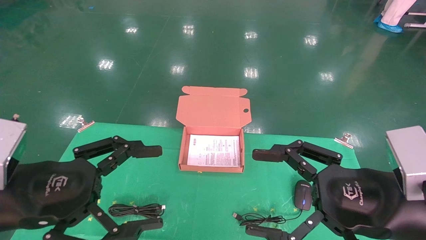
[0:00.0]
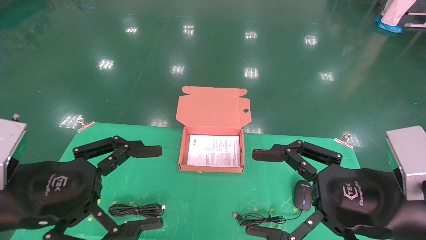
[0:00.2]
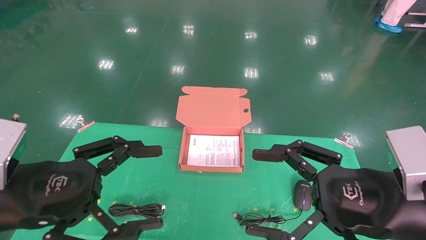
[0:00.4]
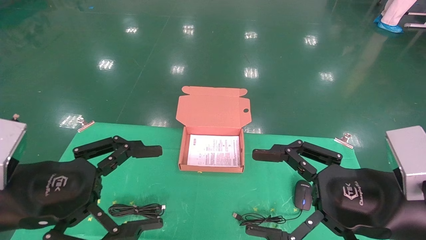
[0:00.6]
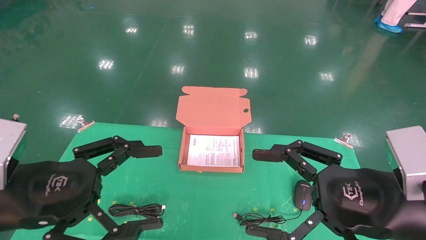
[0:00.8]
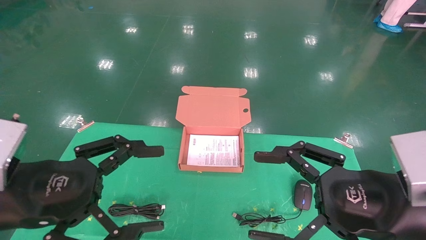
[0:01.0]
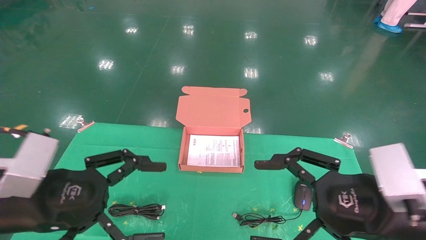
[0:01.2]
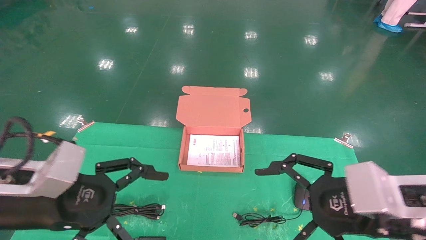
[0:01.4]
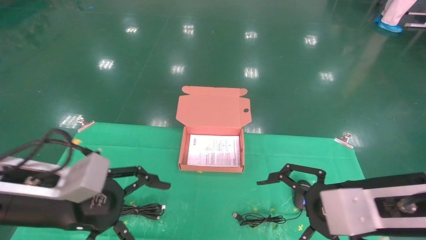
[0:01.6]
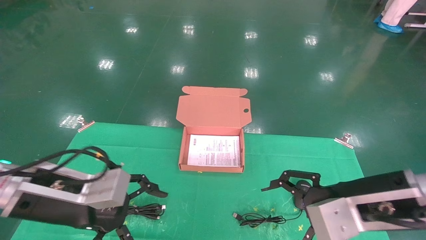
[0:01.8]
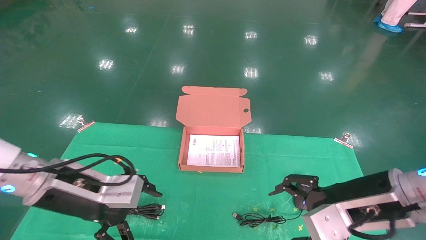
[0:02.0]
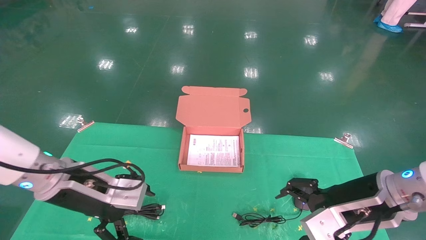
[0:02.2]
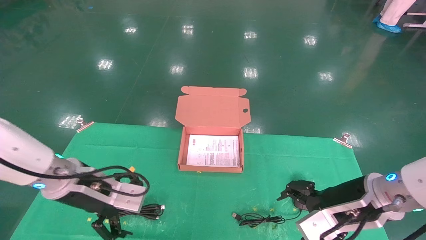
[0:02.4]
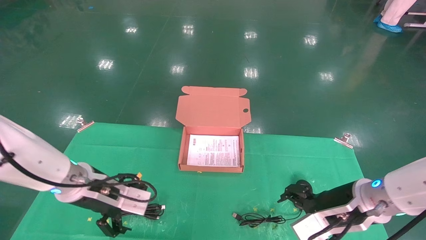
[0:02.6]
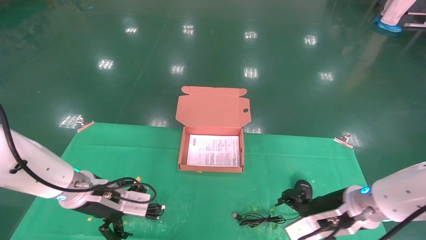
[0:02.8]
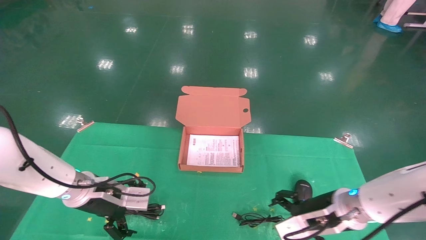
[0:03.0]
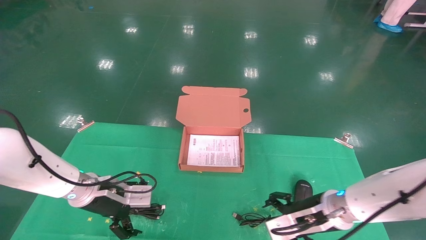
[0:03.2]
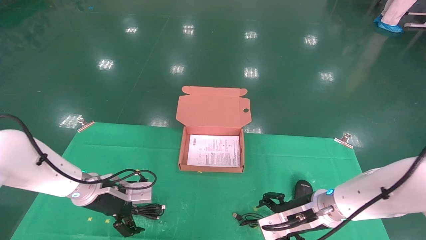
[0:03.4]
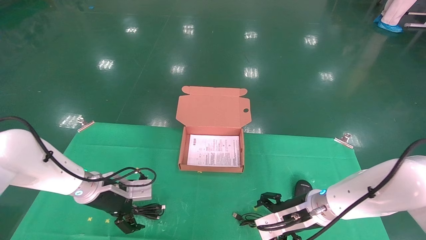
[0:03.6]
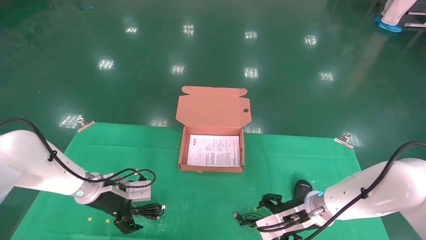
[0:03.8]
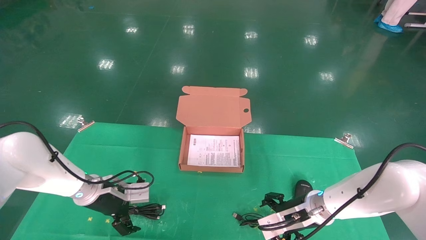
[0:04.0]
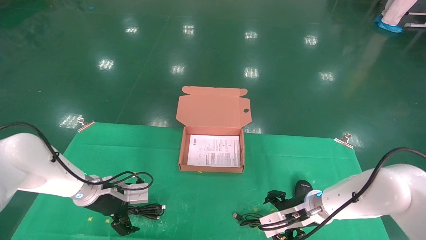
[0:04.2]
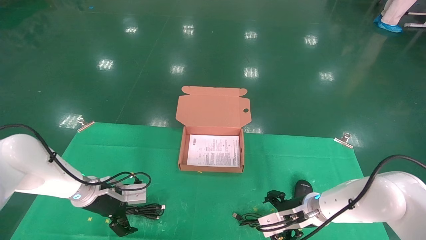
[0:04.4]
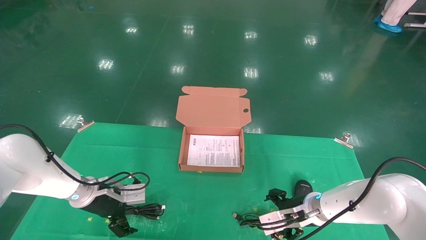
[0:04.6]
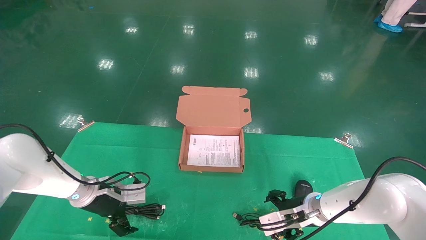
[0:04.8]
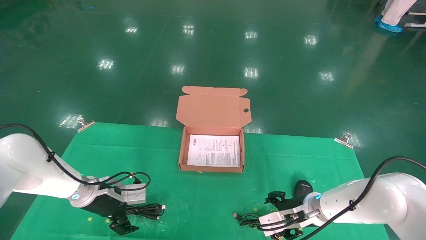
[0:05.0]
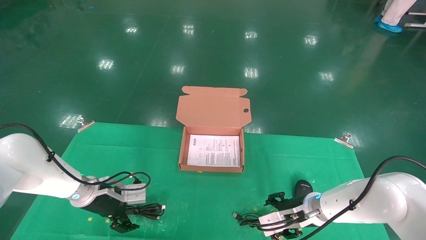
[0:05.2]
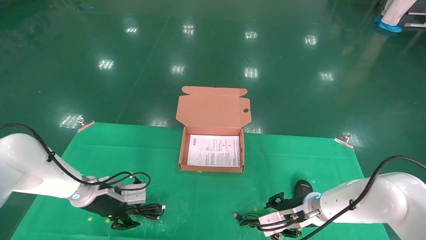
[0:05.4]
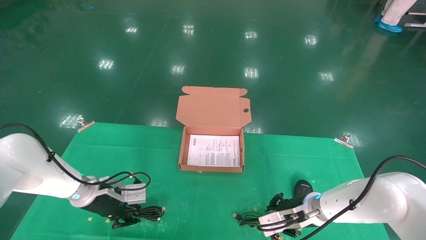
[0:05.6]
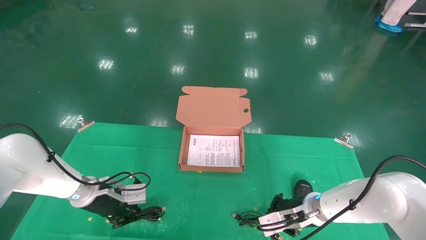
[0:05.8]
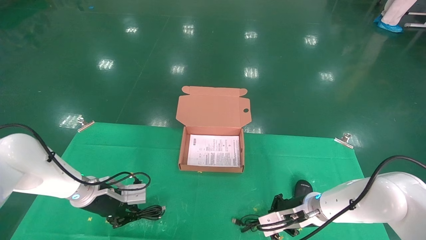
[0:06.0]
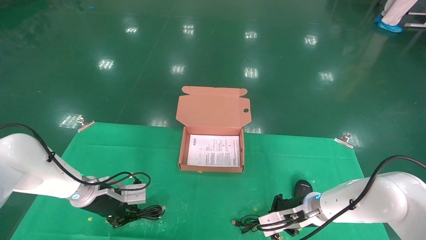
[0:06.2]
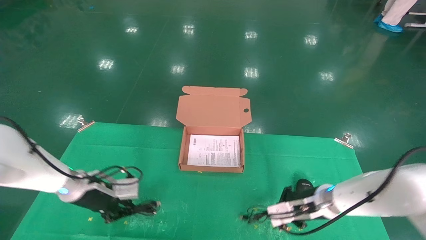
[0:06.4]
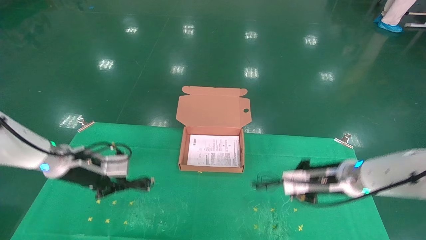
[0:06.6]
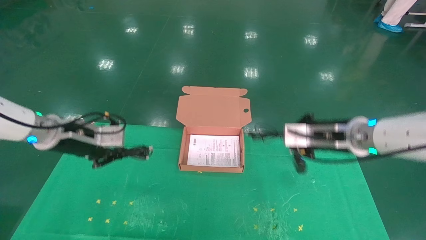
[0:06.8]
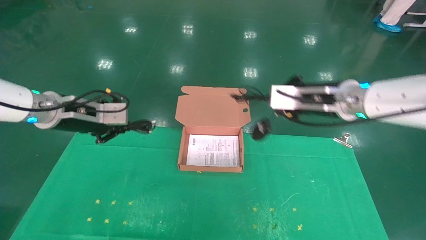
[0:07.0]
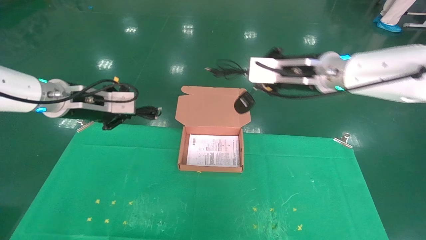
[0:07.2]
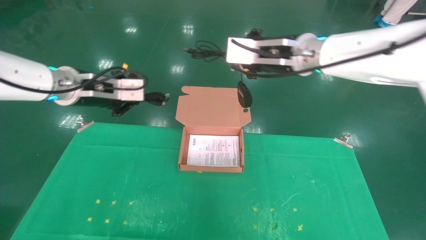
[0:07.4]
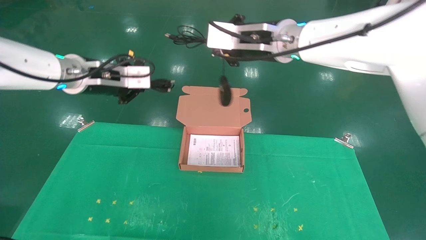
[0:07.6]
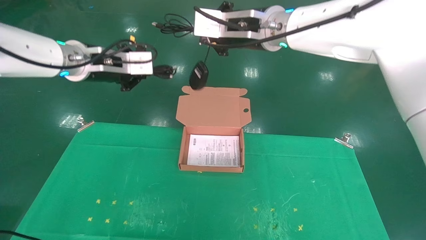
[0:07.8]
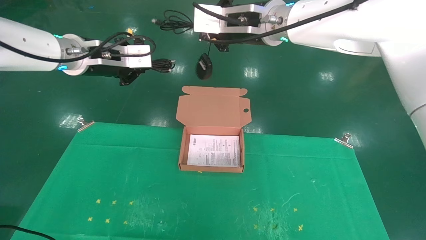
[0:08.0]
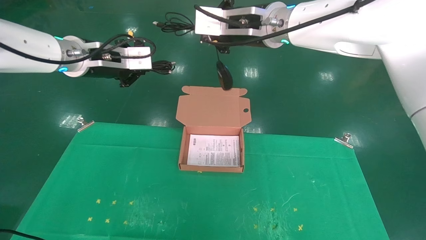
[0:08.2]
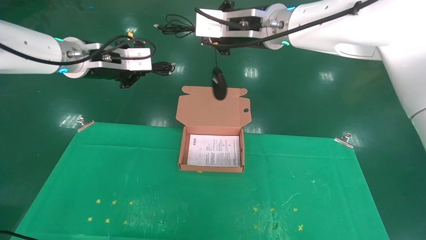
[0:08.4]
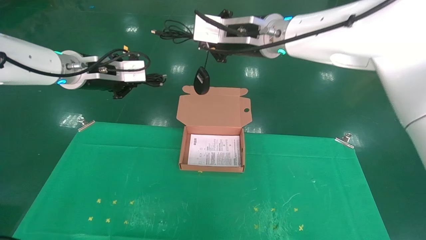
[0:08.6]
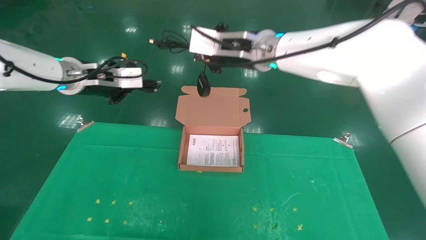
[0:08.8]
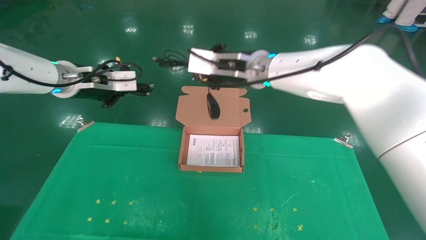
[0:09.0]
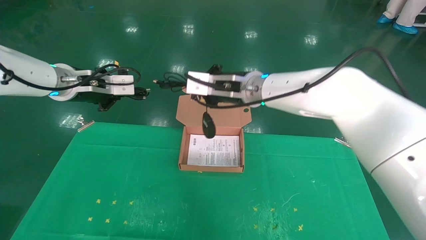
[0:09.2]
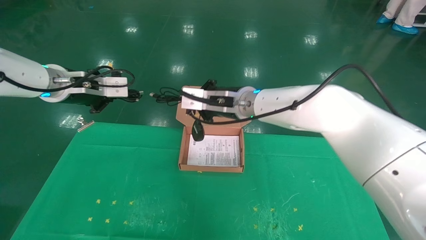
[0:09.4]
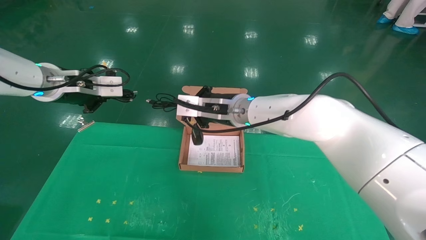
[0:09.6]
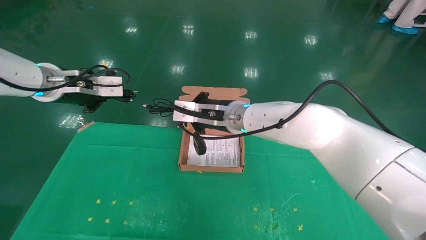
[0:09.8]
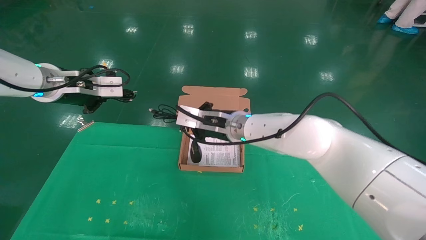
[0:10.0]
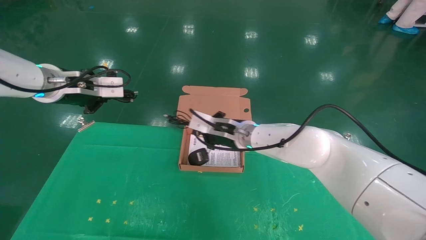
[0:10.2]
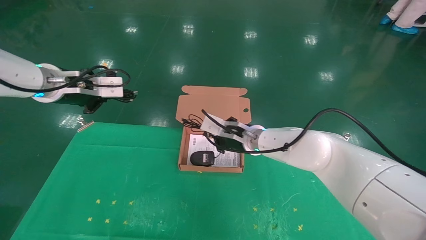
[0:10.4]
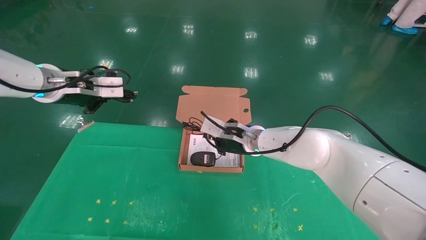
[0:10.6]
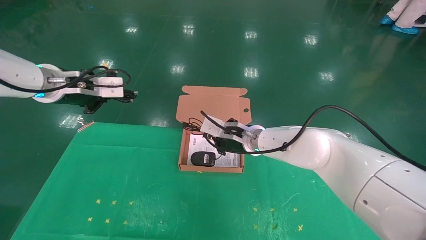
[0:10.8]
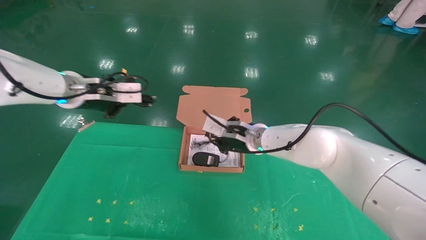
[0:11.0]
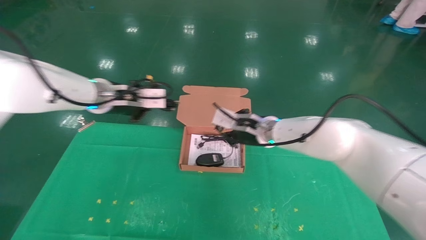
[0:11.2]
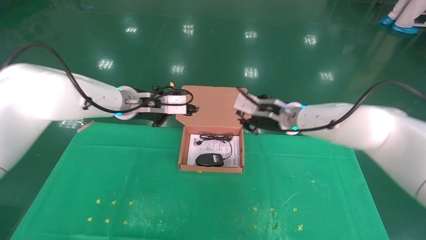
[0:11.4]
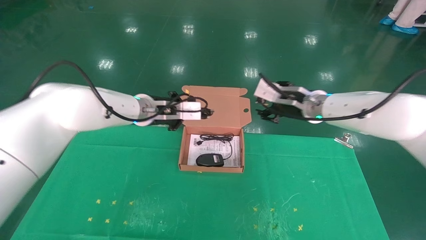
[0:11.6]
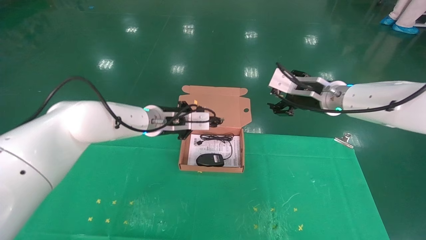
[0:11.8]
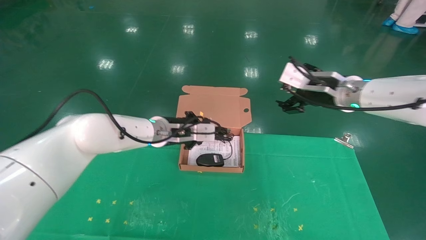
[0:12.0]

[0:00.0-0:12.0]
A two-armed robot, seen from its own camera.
Task of the whole recording: grasp data cable left put into box grasp mouse right put into box.
Step, 0:00.8 to 0:07.0: Grab and pick up both the mouse and power cord from the accessory packaging area at the same time.
0:01.6 to 0:03.0: The grippers both shift forward and downward by about 15 cm.
0:03.0 to 0:04.4: The grippers both shift forward and downward by roughly 10 cm.
0:04.4 to 0:06.0: The left gripper closes up, while the right gripper closes up.
0:06.0 to 0:07.6: The grippers both shift upward by some 30 cm.
0:07.6 to 0:09.0: The right gripper changes place by about 5 cm.
0:09.0 to 0:10.4: The right gripper is displaced downward by some 15 cm.
0:10.4 to 0:12.0: The left gripper moves to the right and downward, some 25 cm; the right gripper heads to the right and upward, covering some 25 cm, and opens its fingers.

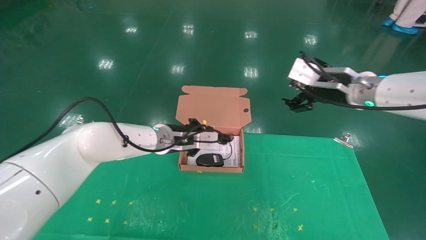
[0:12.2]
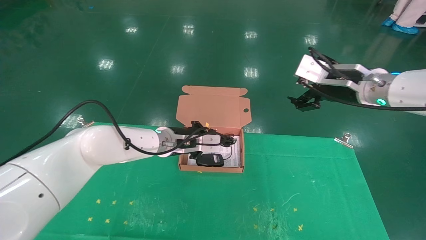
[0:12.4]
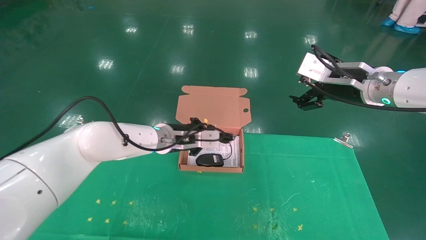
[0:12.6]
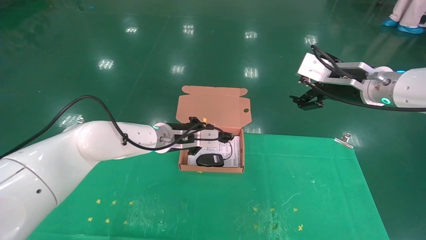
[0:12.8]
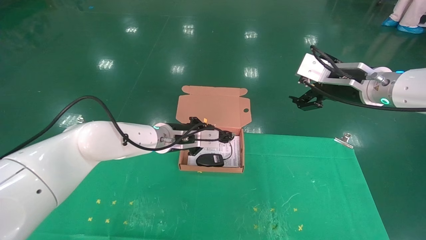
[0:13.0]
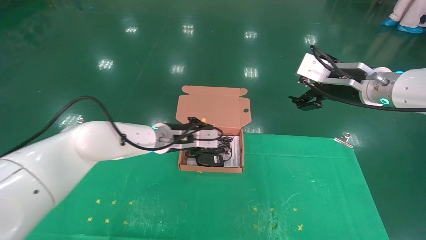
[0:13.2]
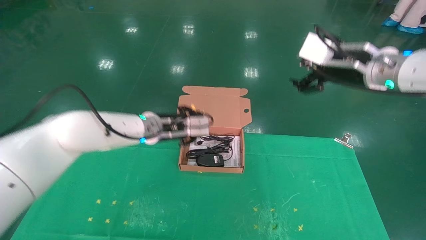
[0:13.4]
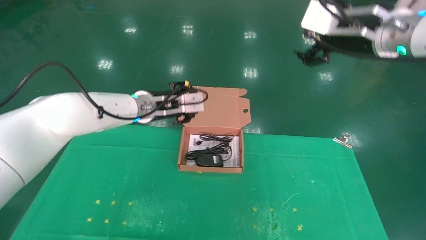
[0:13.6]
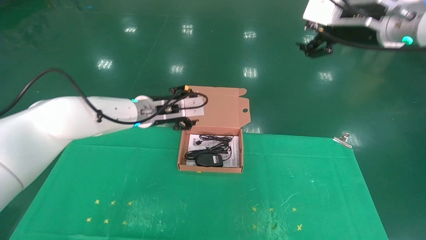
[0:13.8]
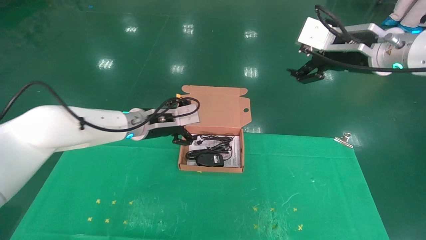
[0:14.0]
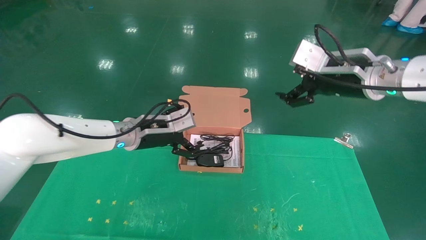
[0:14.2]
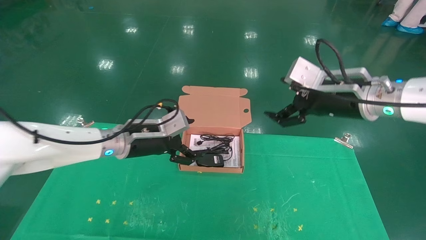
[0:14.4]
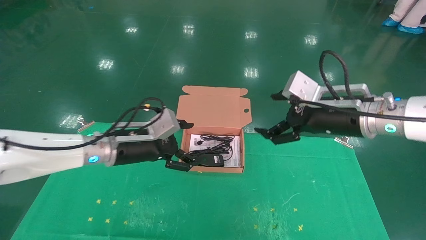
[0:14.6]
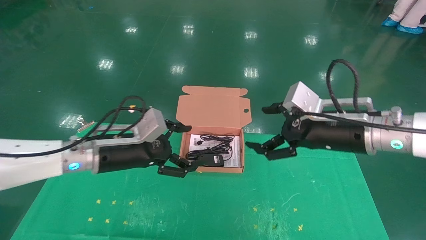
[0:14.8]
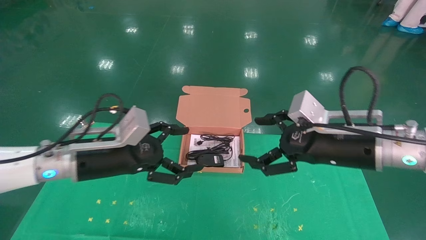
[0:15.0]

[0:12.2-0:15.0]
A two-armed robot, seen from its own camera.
Task of the whole recording: grasp data cable left put into box grasp mouse right put into box.
0:12.2 to 0:13.6: Both grippers move upward, roughly 5 cm. The left gripper opens.
0:13.6 to 0:15.0: The left gripper goes approximately 15 cm backward and to the left, and opens its fingers; the right gripper travels downward and backward by roughly 15 cm.

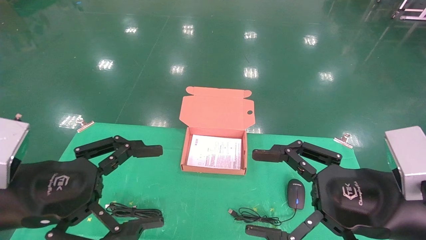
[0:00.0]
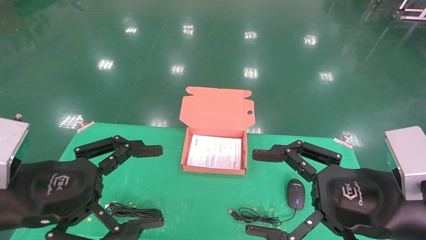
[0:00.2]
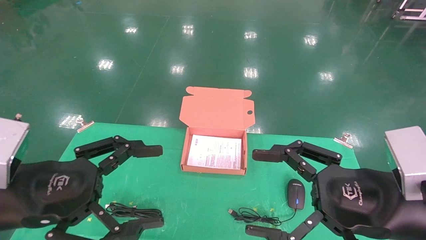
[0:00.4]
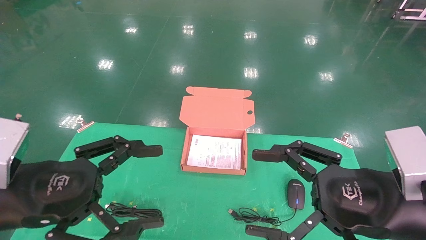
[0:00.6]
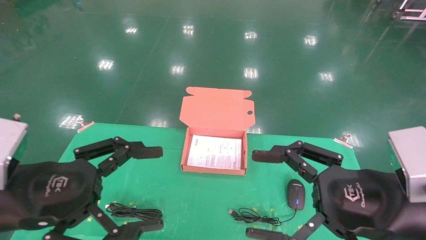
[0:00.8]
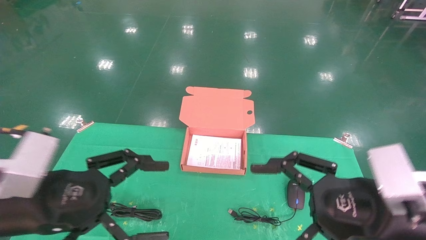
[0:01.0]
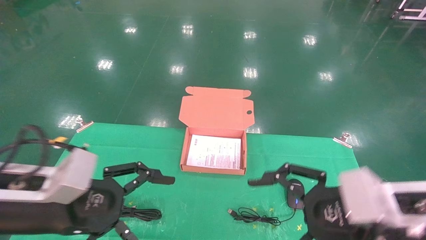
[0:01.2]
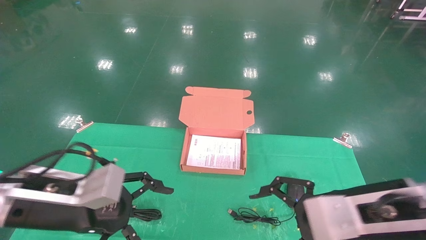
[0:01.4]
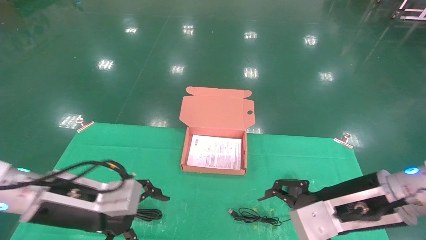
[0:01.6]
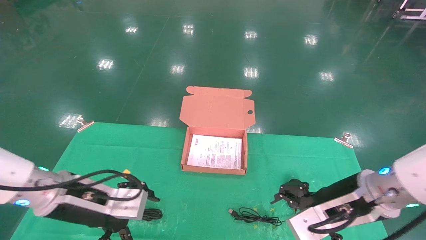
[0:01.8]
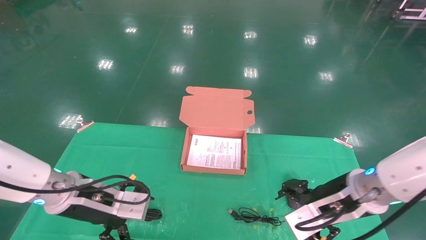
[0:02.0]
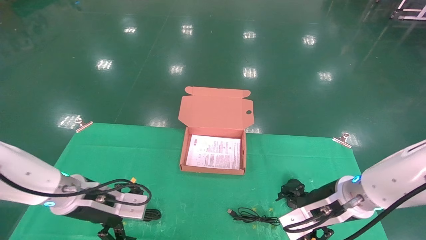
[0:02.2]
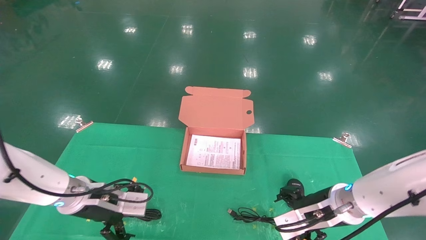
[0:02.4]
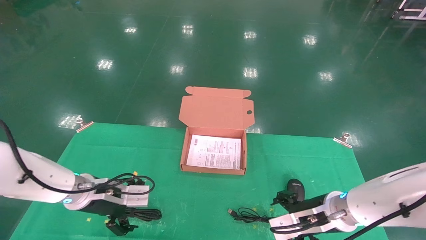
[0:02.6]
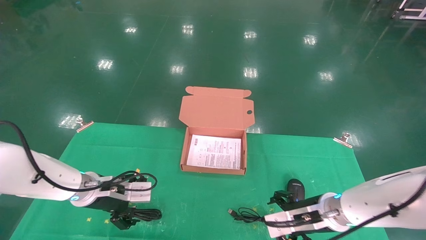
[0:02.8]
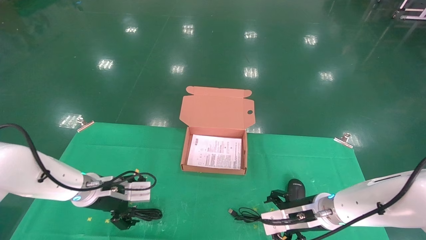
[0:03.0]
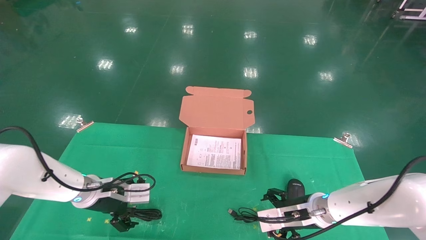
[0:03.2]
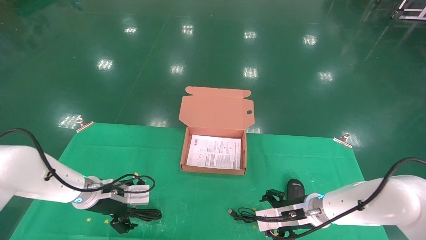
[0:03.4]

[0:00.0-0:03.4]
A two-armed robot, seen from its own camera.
Task of the whole recording: grasp data cable left put into box grasp mouse right put into box.
0:00.0 to 0:01.6: The right gripper moves forward, approximately 5 cm, while the left gripper travels forward and downward by some 10 cm.
0:01.6 to 0:03.4: The left gripper goes about 15 cm forward and downward. The right gripper heads downward and forward, covering about 20 cm.
